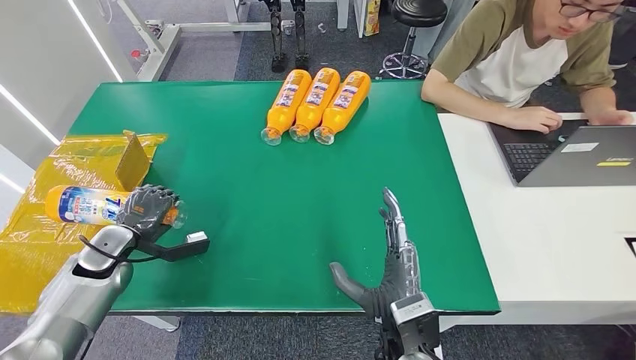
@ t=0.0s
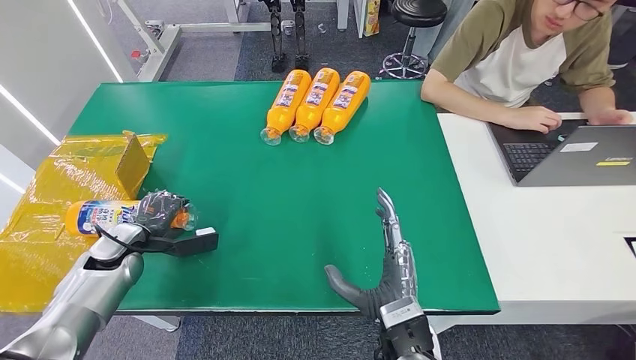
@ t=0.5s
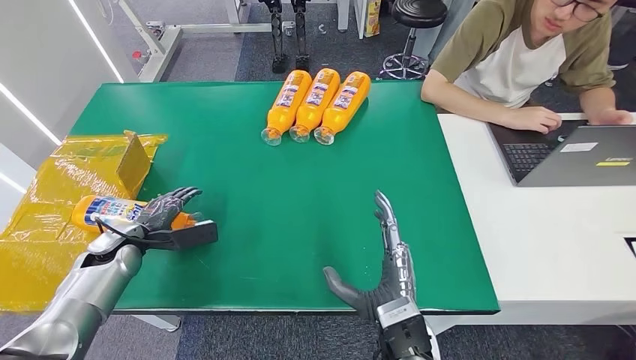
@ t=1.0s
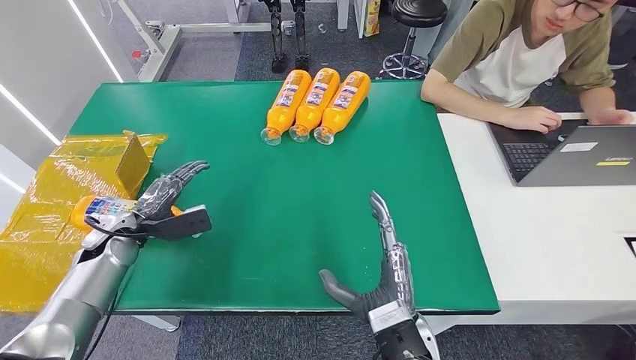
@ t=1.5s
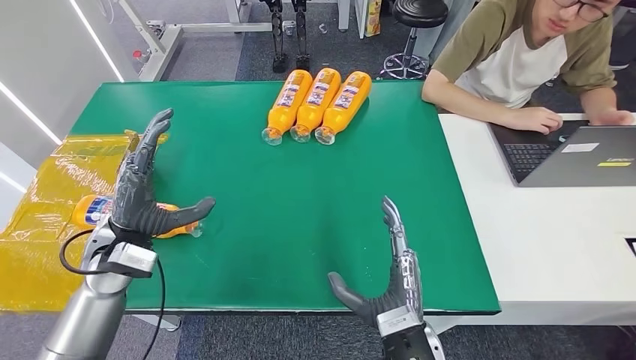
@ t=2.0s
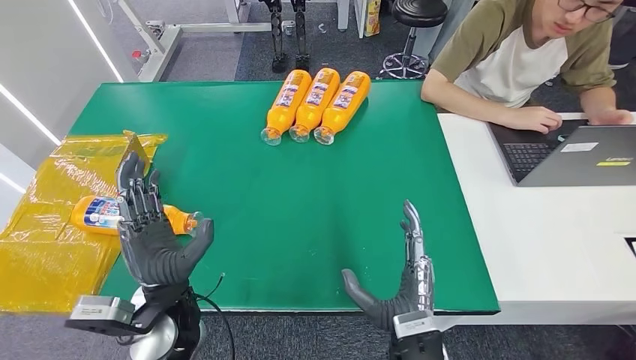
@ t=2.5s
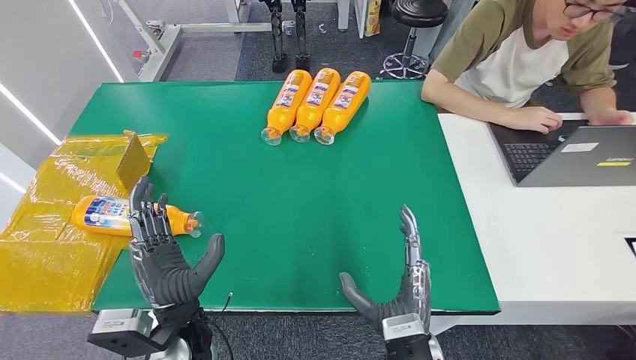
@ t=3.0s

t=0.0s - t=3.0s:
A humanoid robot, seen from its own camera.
Step, t=0.0s - t=3.0s: Turn the bottle to the front side.
t=1.5s - t=3.0s: The left hand moves to the right and backward, some 30 cm.
